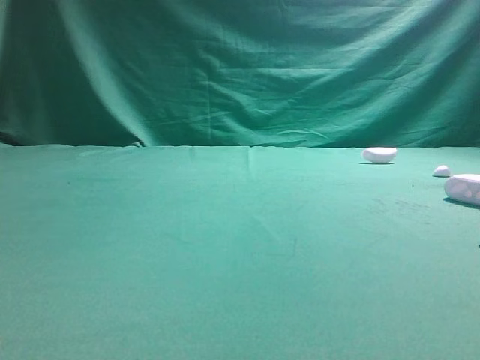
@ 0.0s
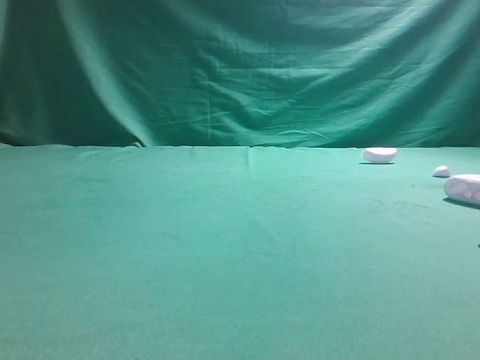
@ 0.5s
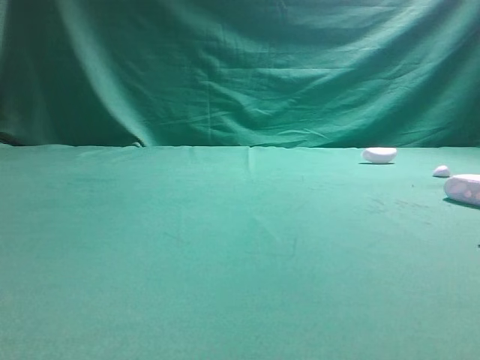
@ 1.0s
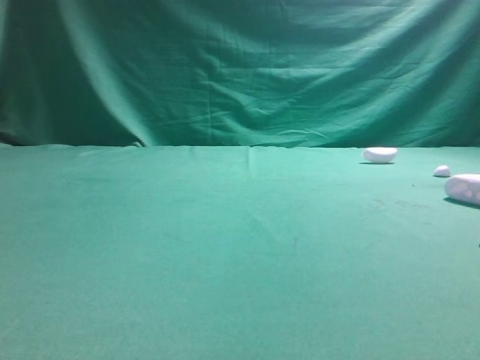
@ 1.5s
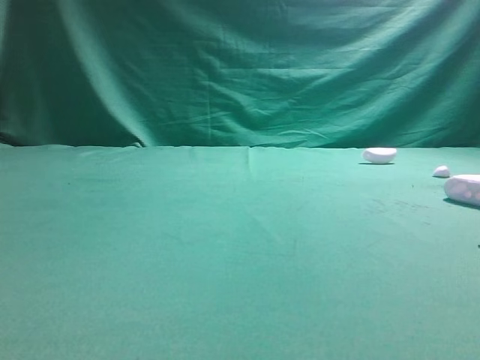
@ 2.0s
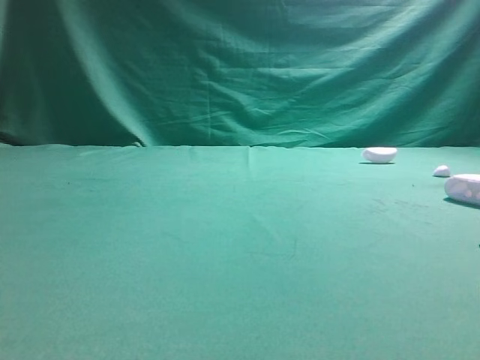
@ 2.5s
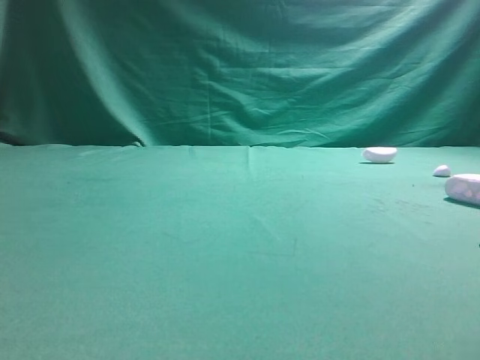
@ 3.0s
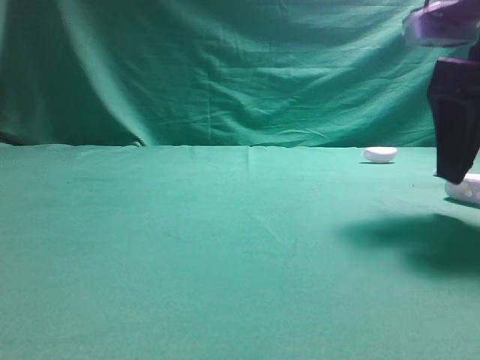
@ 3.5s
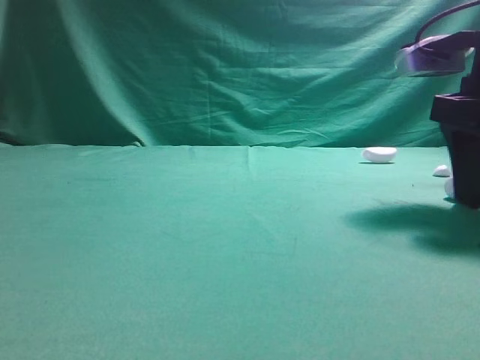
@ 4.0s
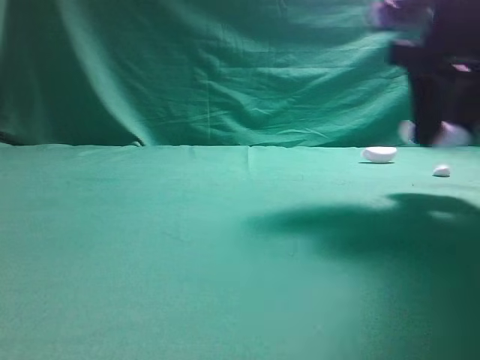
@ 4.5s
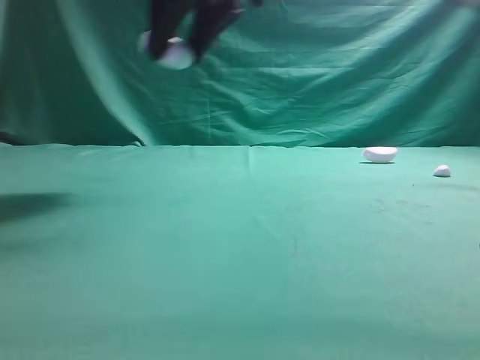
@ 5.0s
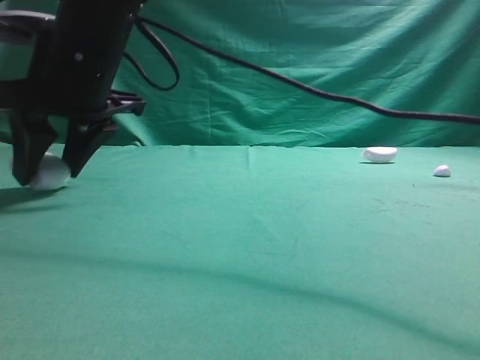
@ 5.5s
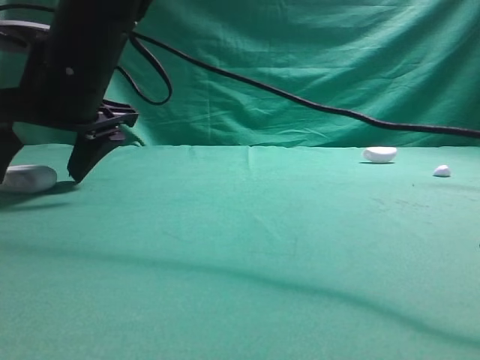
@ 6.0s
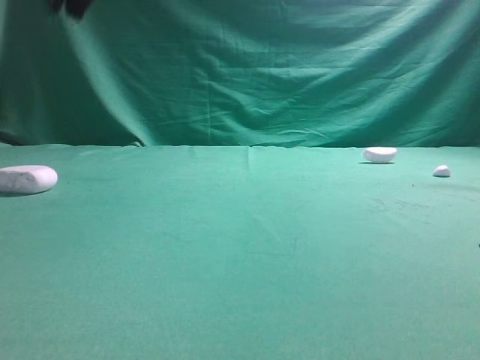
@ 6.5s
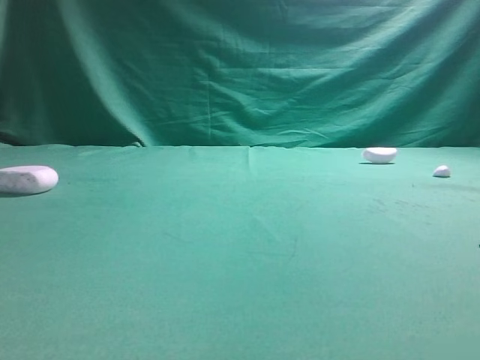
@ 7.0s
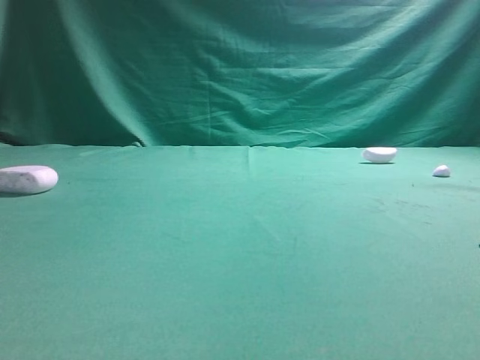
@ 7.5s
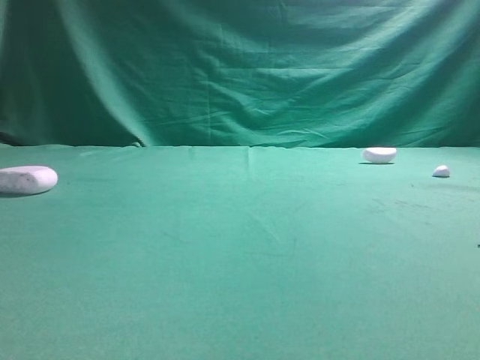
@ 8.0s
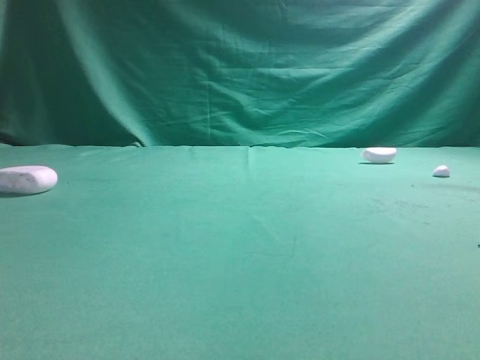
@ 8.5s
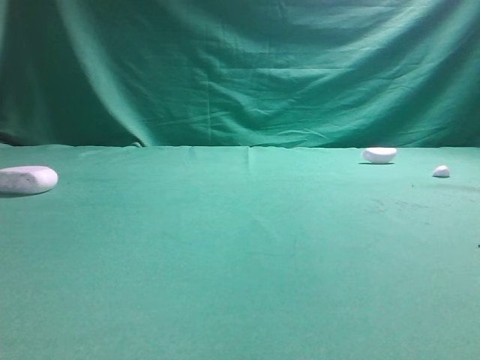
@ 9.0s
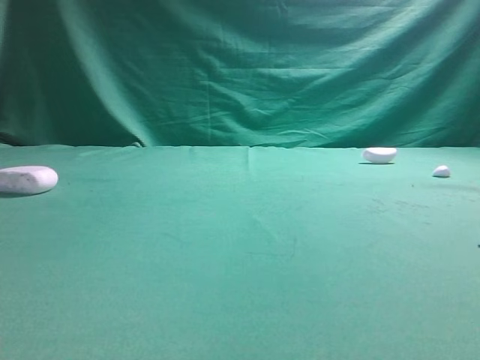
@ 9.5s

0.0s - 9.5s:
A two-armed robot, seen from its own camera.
Step, 0.0s - 3.5s: Grasp the Bluetooth earphone case.
Step, 4.0s - 6.0s: Place bluetooth earphone case on the left side of the table.
